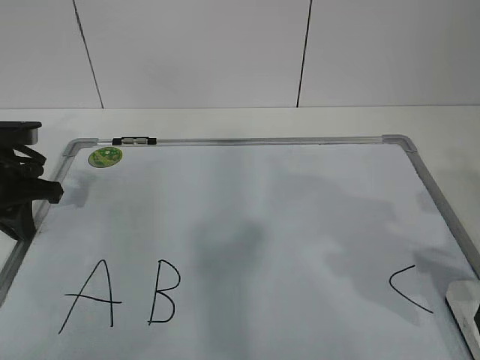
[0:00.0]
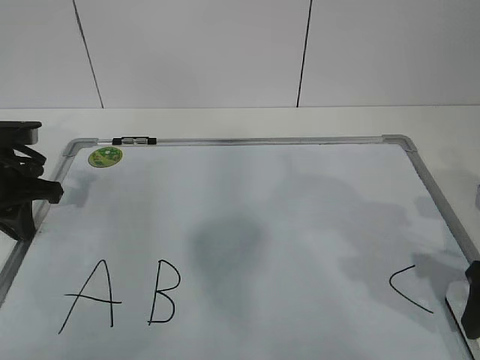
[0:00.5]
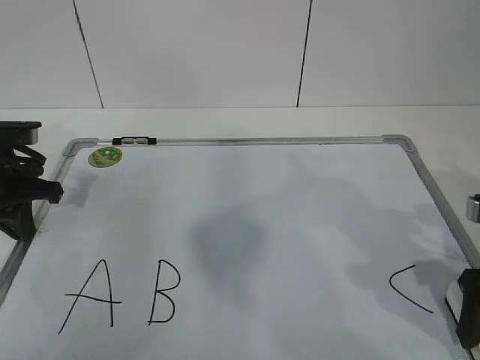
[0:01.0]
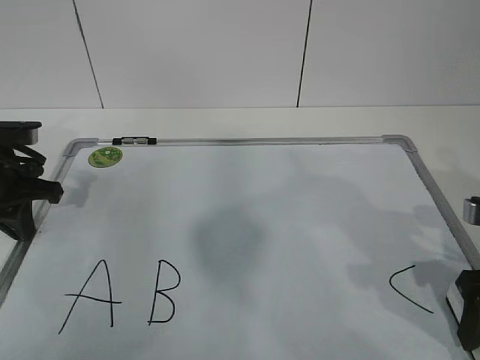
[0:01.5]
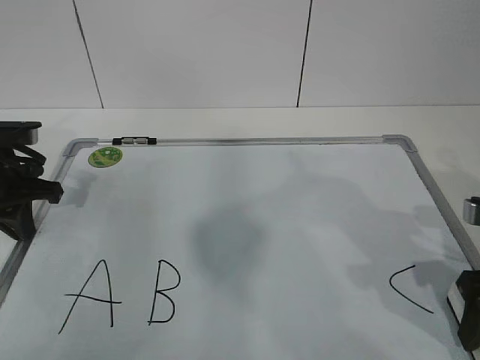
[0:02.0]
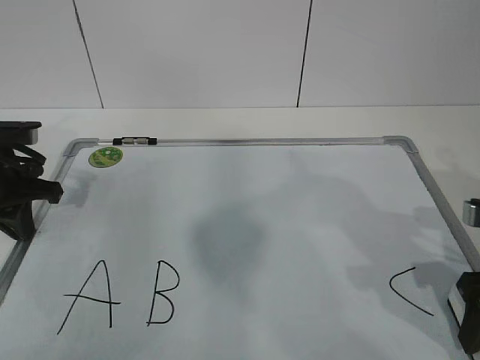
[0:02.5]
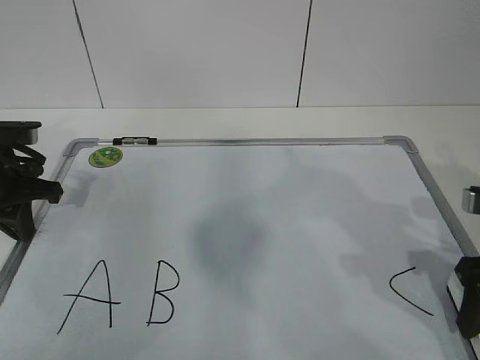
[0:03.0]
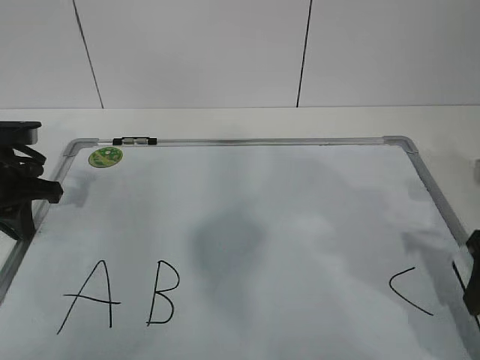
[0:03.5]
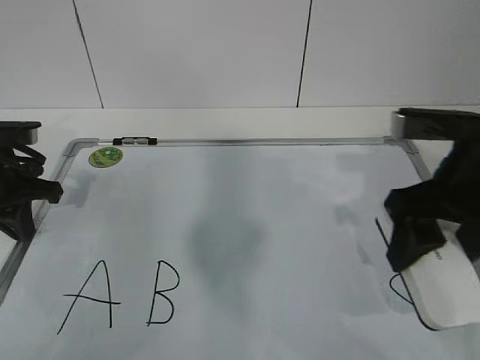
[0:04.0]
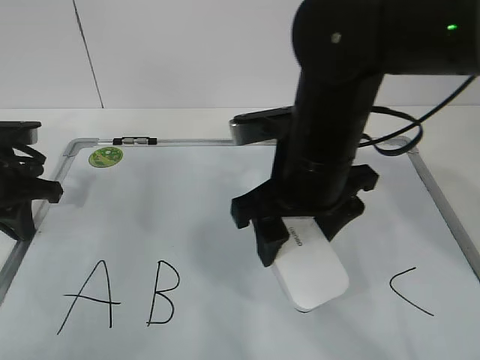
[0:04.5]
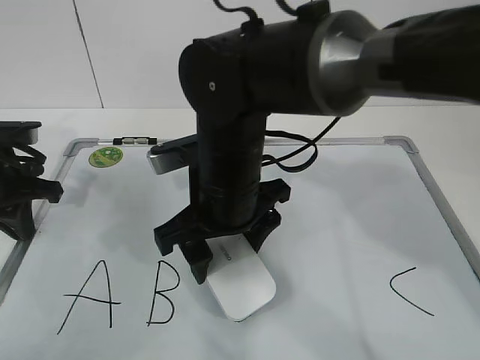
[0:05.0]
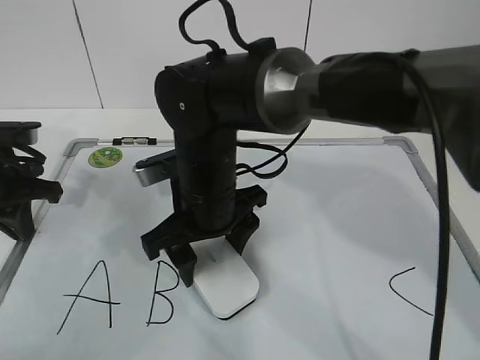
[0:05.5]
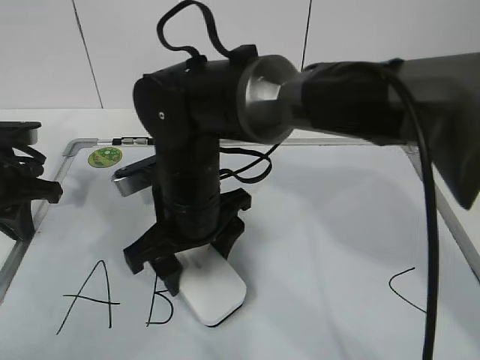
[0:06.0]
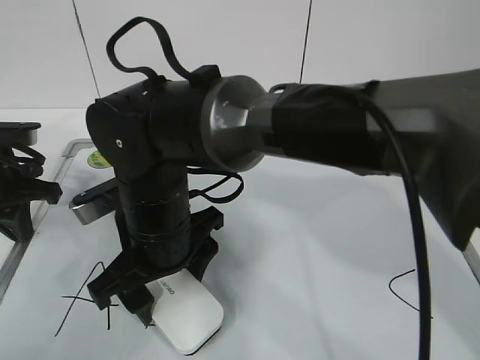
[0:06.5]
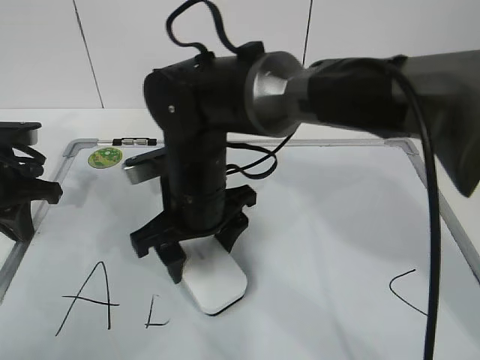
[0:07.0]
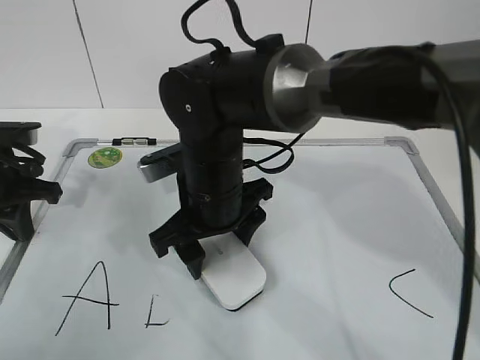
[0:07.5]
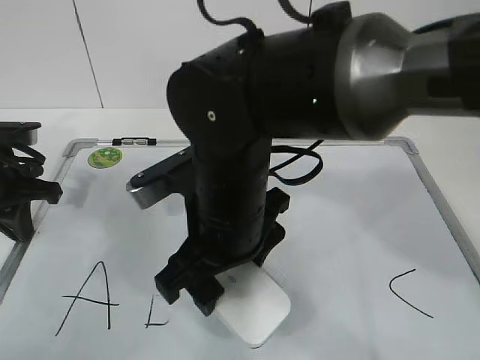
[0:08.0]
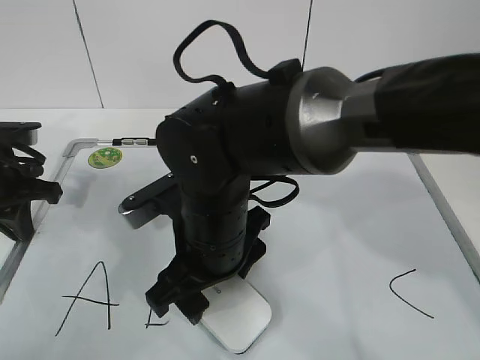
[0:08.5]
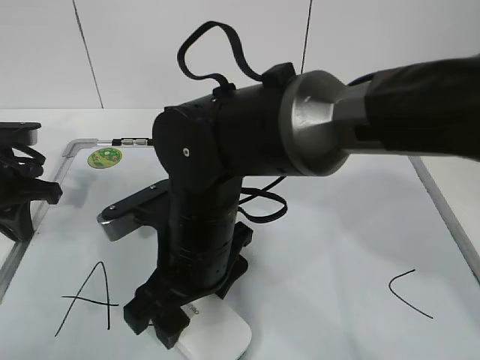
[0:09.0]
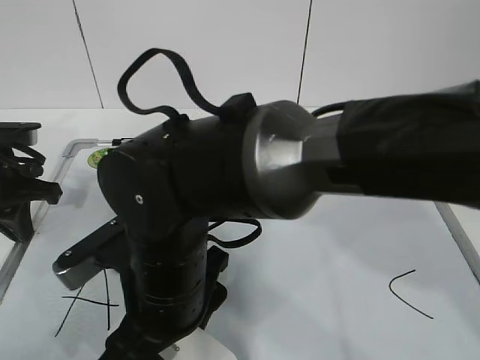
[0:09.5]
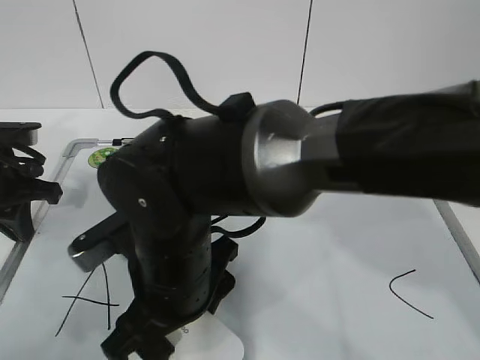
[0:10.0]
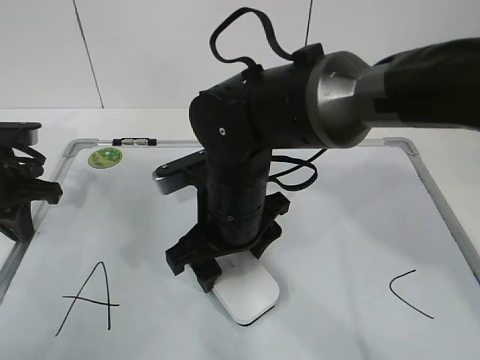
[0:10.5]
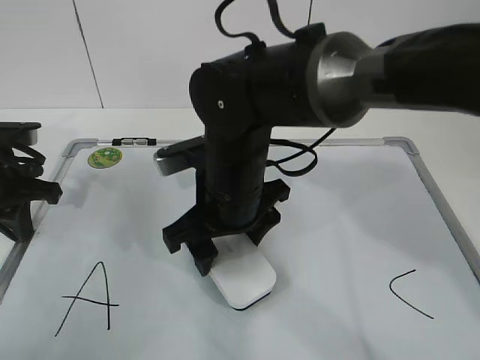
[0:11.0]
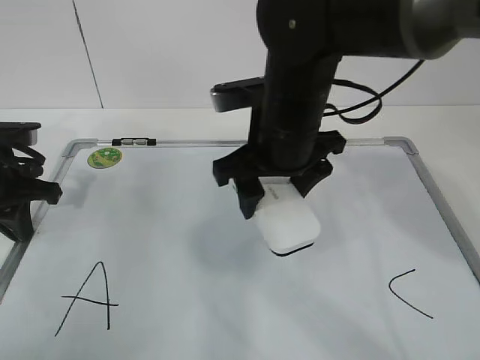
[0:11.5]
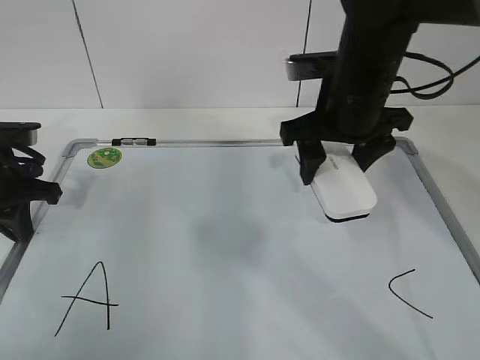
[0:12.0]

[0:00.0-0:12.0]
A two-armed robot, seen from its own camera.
Task of the whole recording: pick up the eraser on the blackboard and erase the letter "B".
Step, 0:01.5 to 0:07.5: Erase the letter B with your right hand.
Step, 0:08.0 to 0:11.0: Put down the eraser with your right hand.
0:00.0 to 0:02.0: The right gripper closes up.
0:02.0 to 0:04.0: The right gripper heads upward and to the left, covering about 10 cm.
0:04.0 to 0:06.0: The right gripper is displaced to the left by some 25 cm.
0:06.0 to 0:08.0: The right gripper shifts by roughly 5 cm.
0:08.0 to 0:10.0: The right gripper moves about 5 cm.
0:10.0 to 0:12.0: The right gripper moves to the right, forward and upward, about 25 cm.

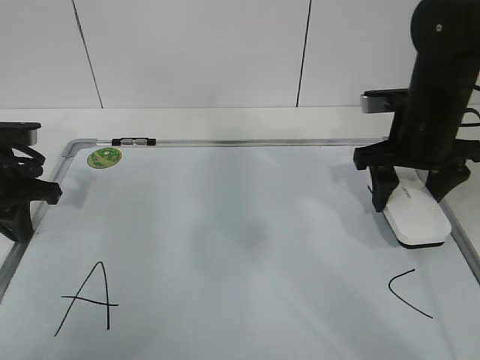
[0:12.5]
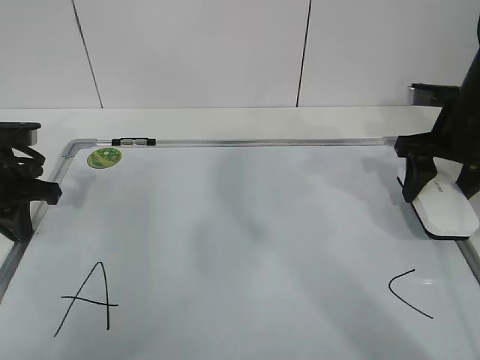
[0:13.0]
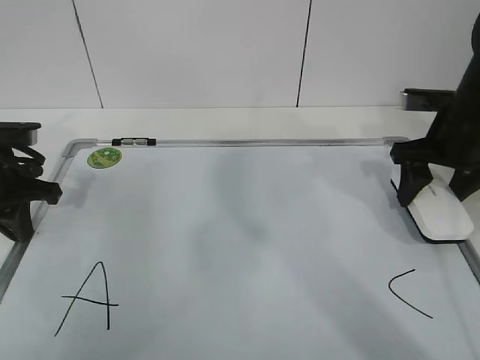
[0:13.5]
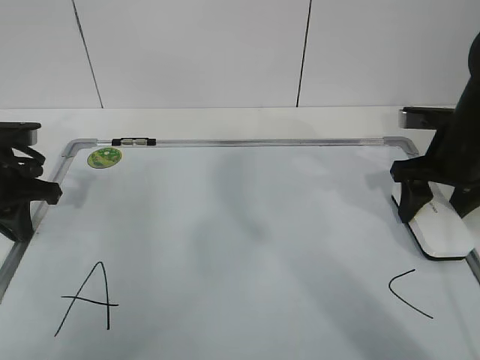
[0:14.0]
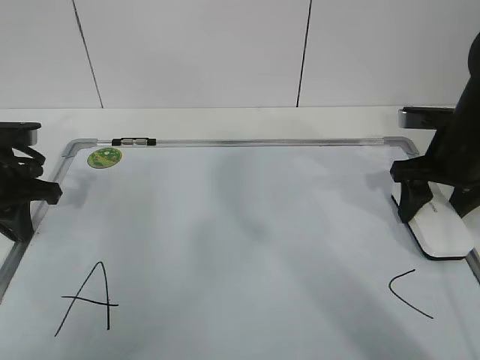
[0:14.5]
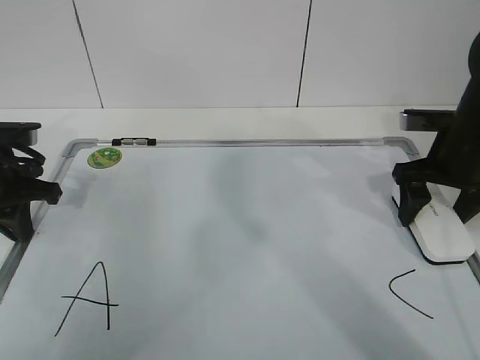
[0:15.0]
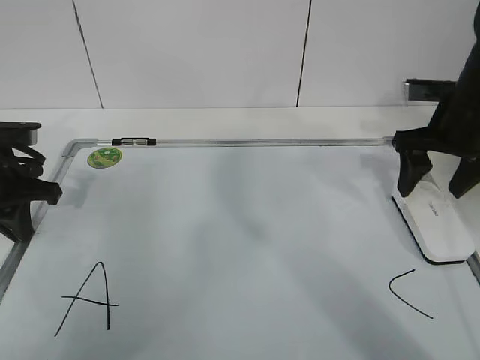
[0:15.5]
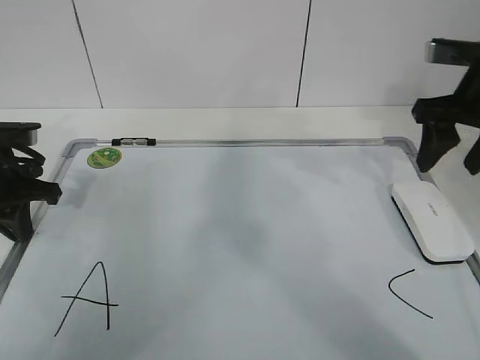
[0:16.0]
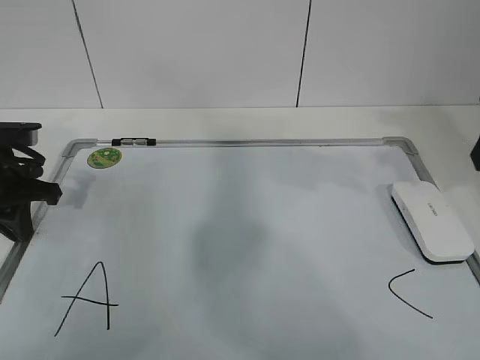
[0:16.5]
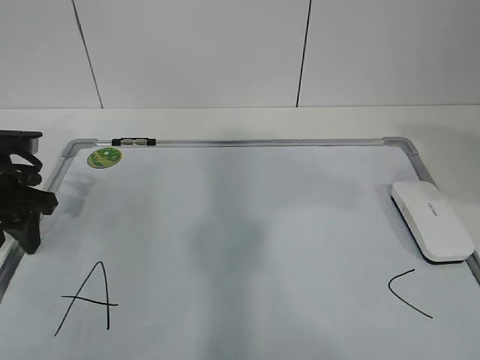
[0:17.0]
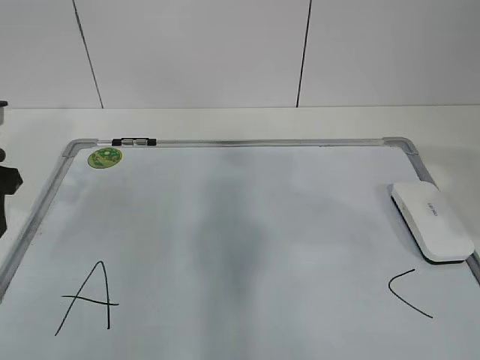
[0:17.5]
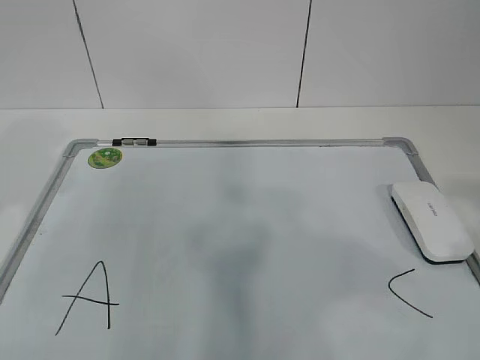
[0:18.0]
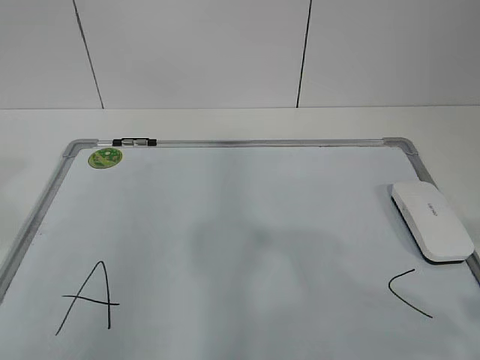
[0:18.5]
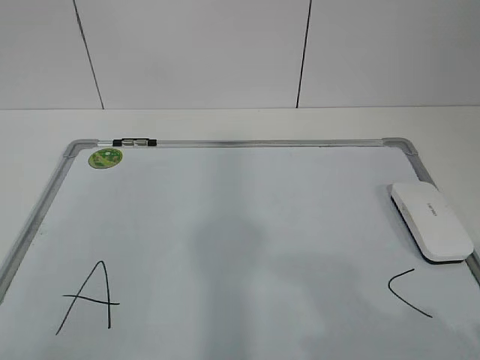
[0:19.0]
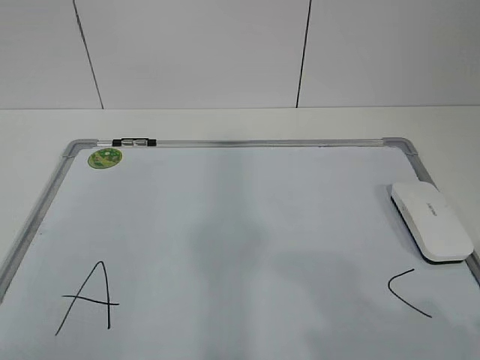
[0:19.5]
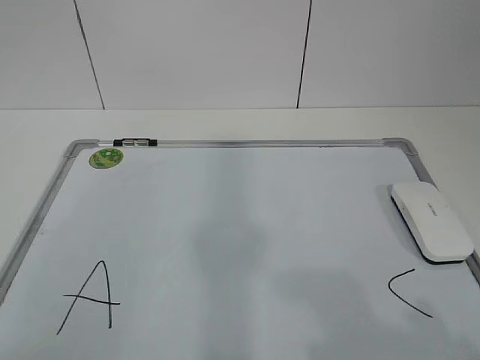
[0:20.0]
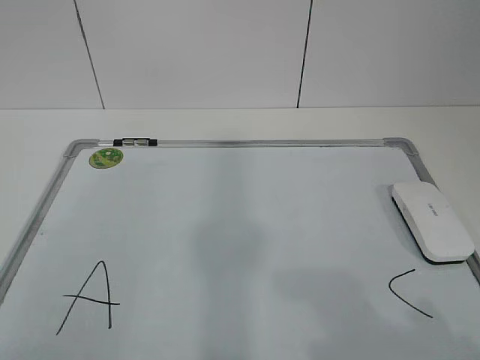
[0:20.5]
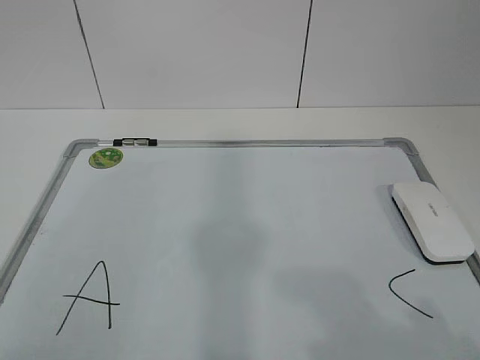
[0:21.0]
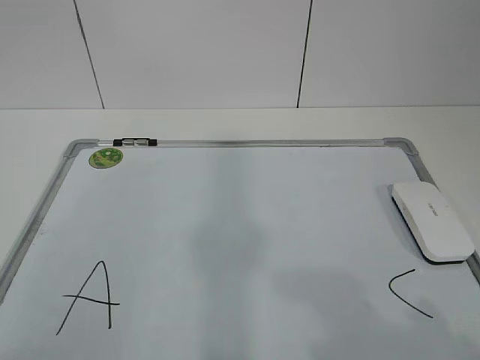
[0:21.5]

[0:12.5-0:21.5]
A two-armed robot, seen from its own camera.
Task of the whole recording: pick up the eraser on the blackboard and erase the letter "B".
0:12.5 to 0:14.5: The right gripper heads to the right, covering approximately 5 cm.
0:14.5 to 0:17.0: The left gripper opens, while the right gripper travels backward and upward by roughly 25 cm, and opens, then closes once more.
0:17.0 to 0:19.5: The left gripper shifts some 35 cm backward. The right gripper is displaced backward and downward by about 20 cm.

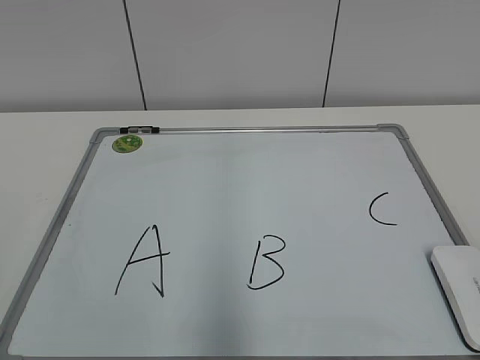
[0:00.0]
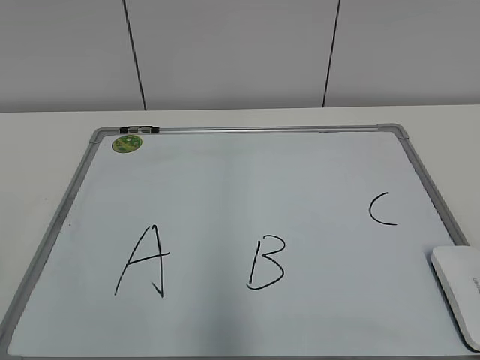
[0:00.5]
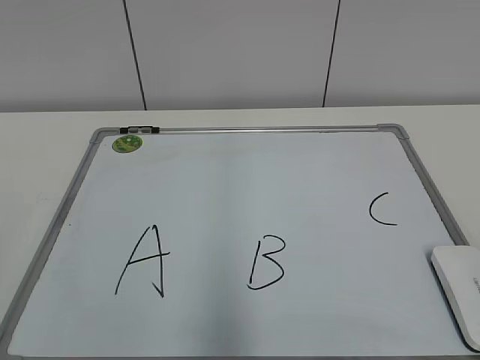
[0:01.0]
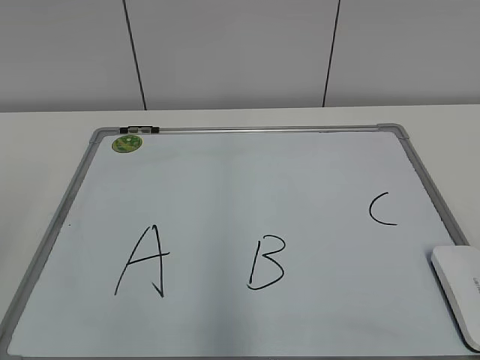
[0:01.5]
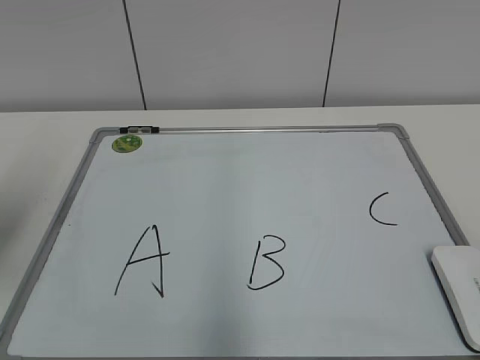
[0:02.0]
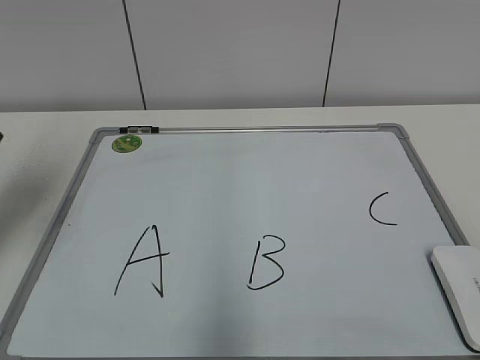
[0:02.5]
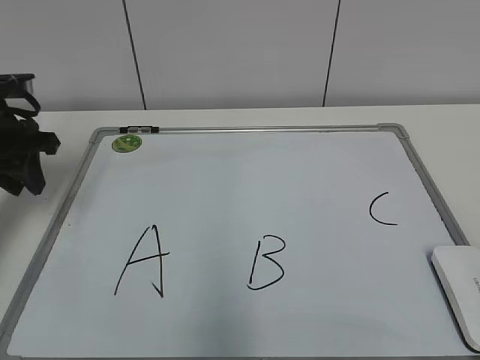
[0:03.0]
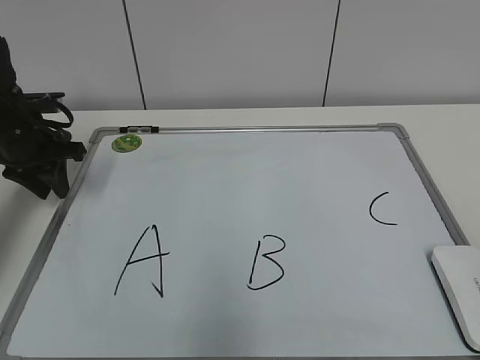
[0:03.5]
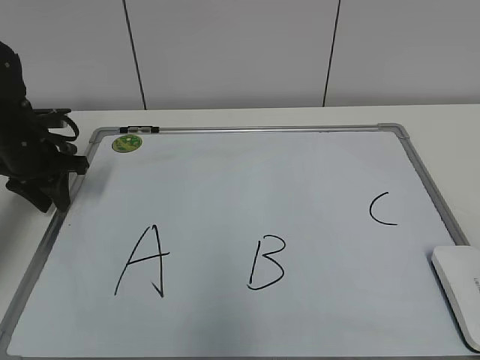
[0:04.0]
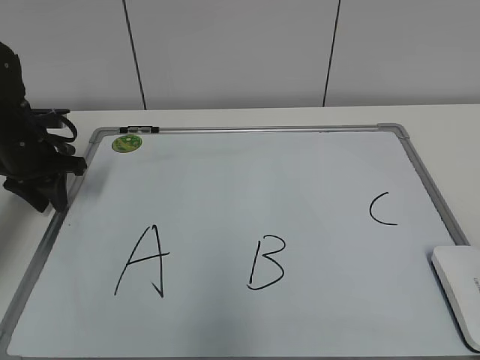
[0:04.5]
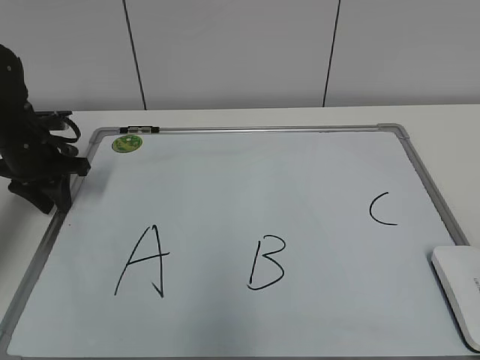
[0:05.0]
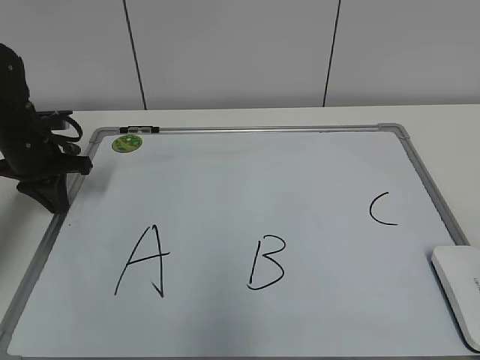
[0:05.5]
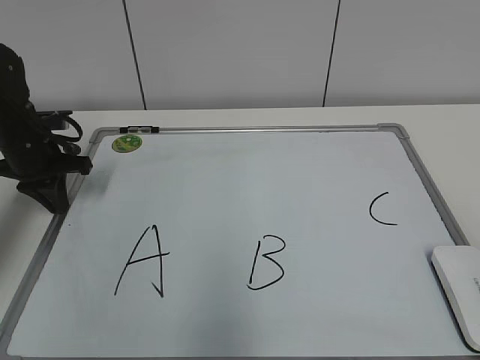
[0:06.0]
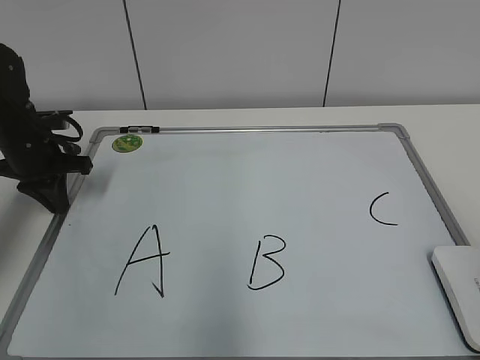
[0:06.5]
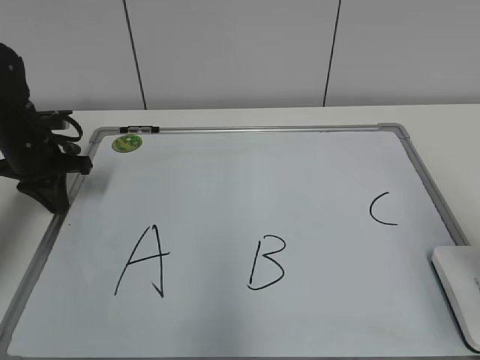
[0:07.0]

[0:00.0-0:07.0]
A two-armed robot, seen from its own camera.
Task of the whole recording: pick up the eraser on the blackboard and erase the letter "B".
Step, 0:00.0 to 0:05.0: Hold the drawing board steady with your left hand.
0:02.0 to 0:03.5: The left gripper travels forward and downward by some 25 cm.
0:03.5 to 0:05.0: The grippers stay close to where they were, moving slightly.
0:05.0 to 0:07.0: The left gripper closes, while the right gripper shifts about 15 cm forward, and opens its fingers.
